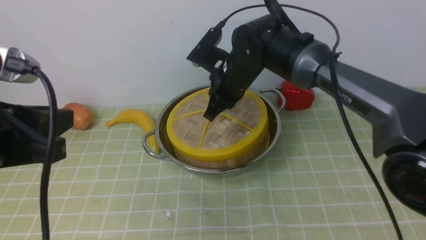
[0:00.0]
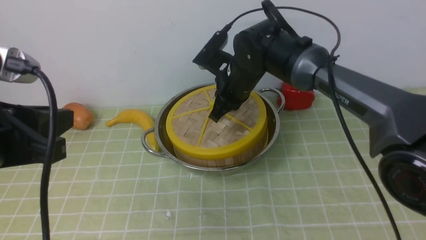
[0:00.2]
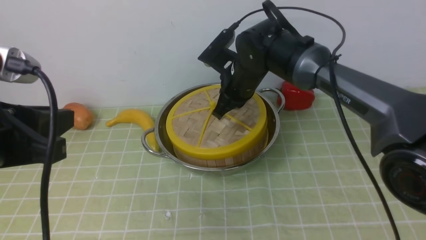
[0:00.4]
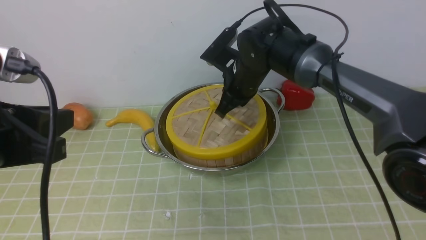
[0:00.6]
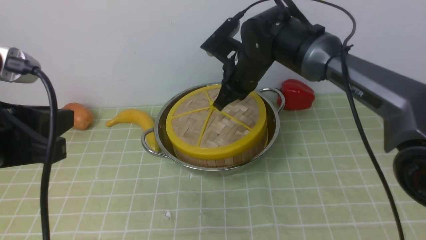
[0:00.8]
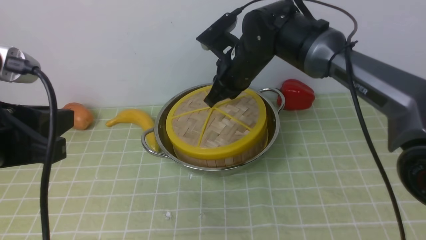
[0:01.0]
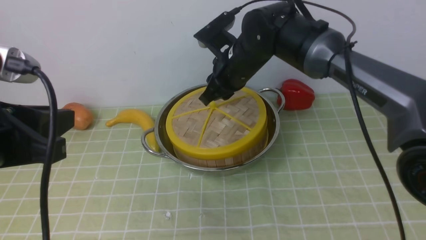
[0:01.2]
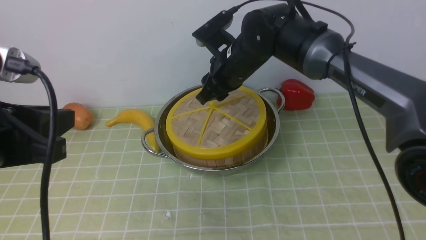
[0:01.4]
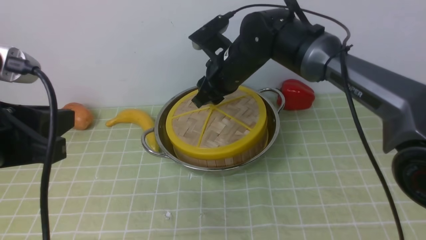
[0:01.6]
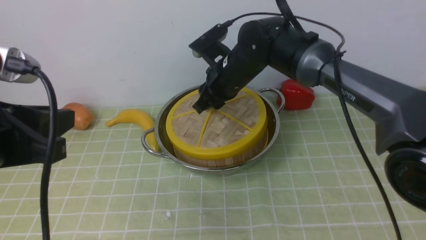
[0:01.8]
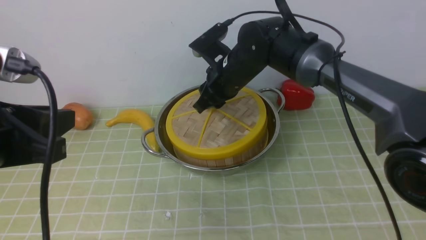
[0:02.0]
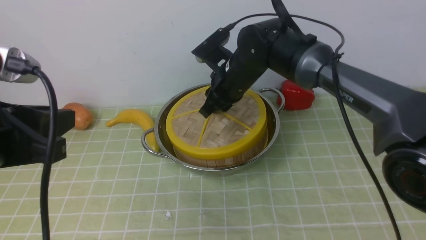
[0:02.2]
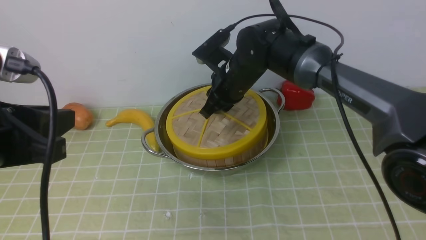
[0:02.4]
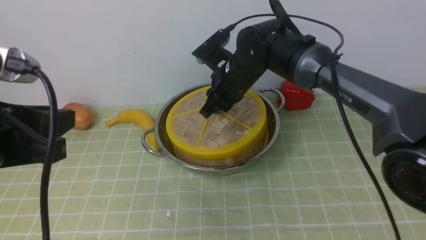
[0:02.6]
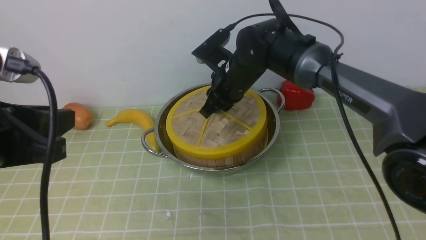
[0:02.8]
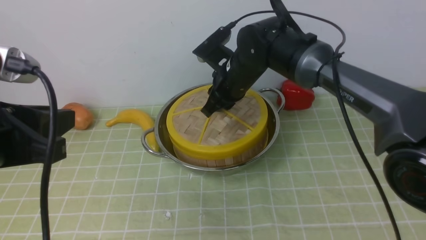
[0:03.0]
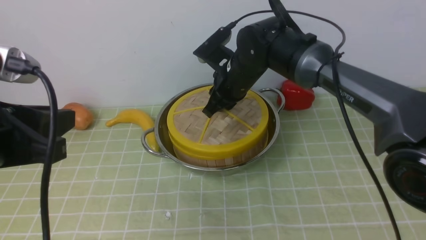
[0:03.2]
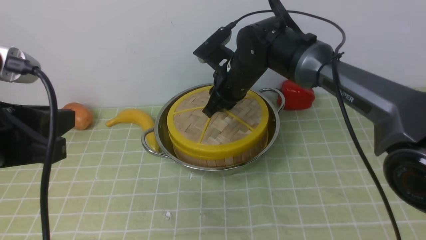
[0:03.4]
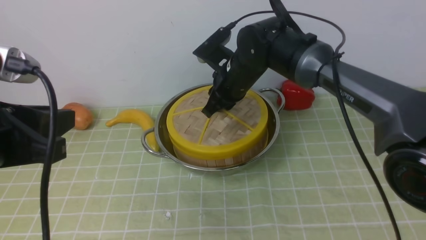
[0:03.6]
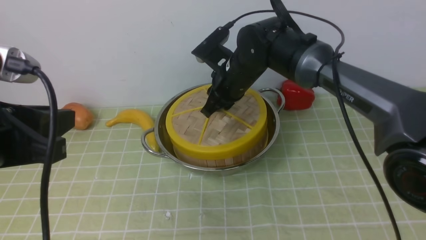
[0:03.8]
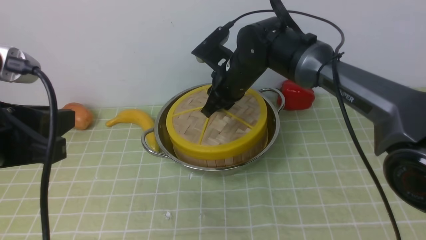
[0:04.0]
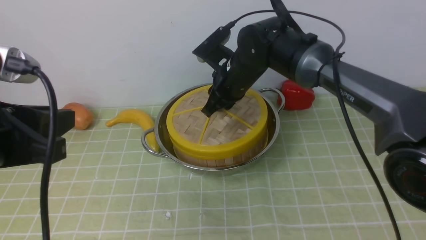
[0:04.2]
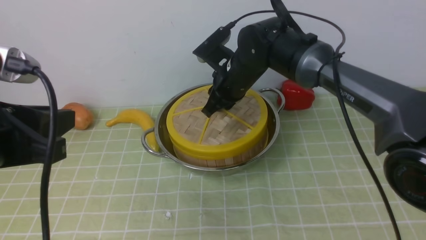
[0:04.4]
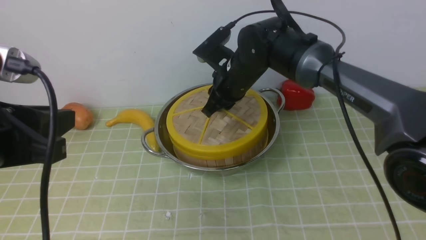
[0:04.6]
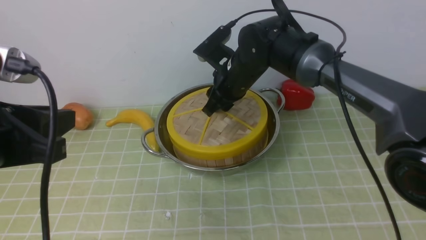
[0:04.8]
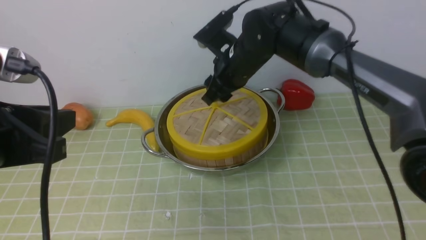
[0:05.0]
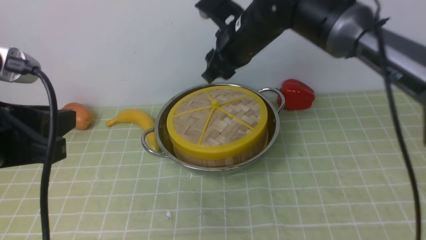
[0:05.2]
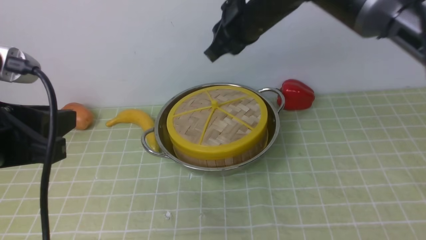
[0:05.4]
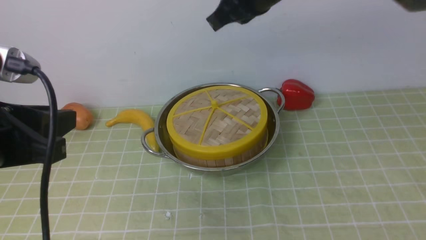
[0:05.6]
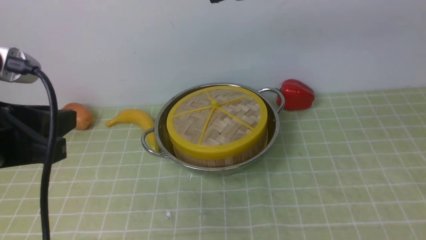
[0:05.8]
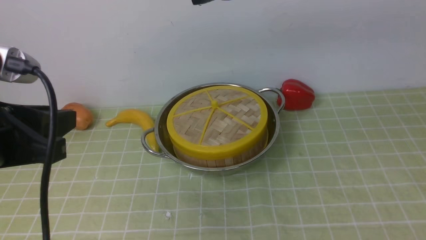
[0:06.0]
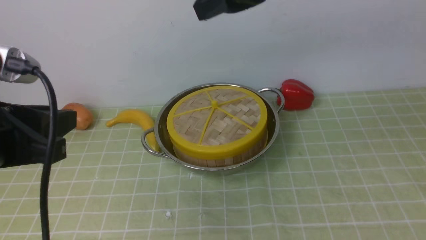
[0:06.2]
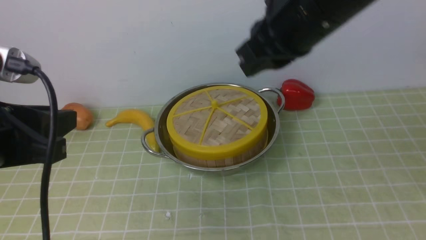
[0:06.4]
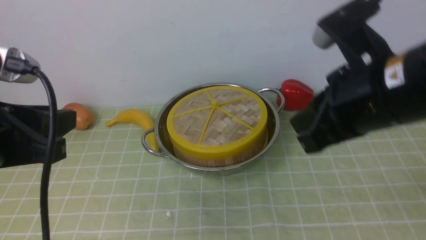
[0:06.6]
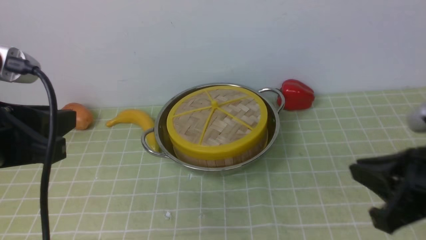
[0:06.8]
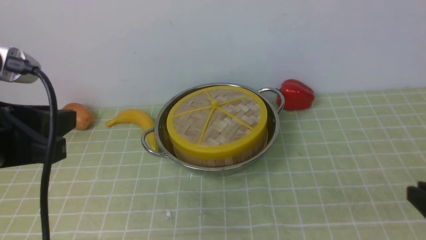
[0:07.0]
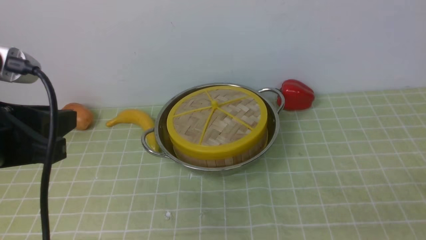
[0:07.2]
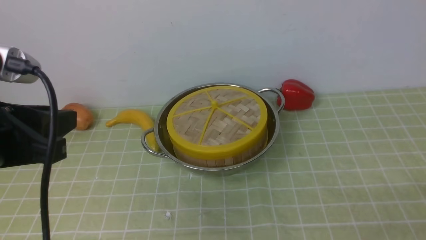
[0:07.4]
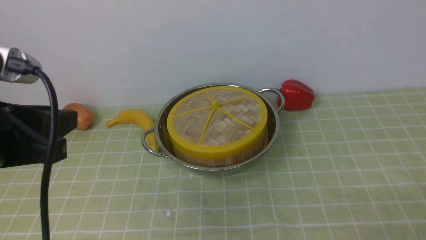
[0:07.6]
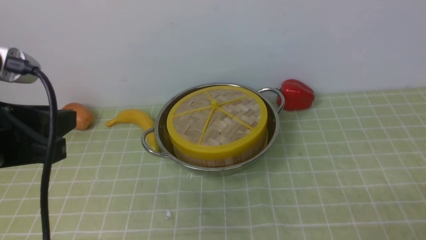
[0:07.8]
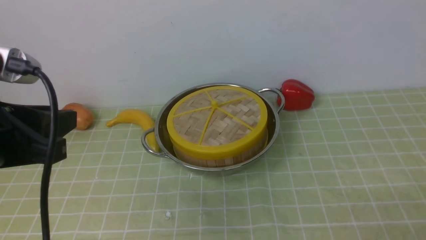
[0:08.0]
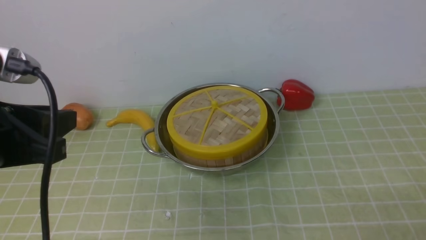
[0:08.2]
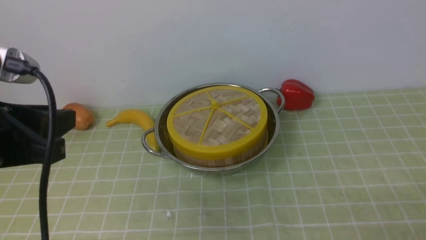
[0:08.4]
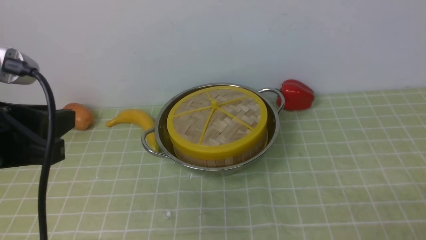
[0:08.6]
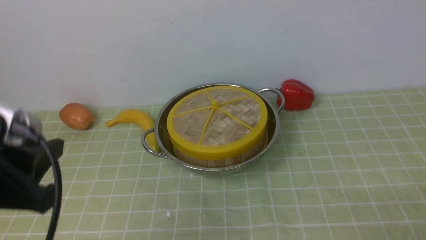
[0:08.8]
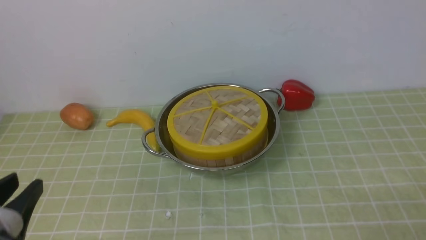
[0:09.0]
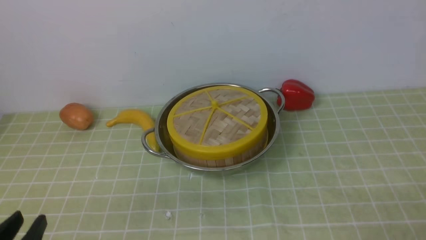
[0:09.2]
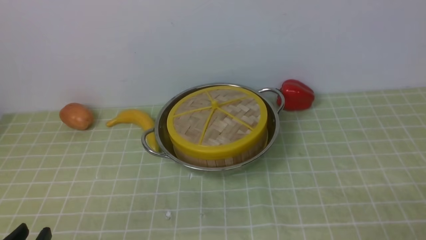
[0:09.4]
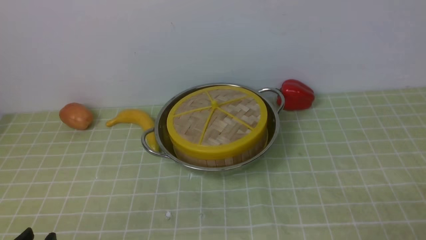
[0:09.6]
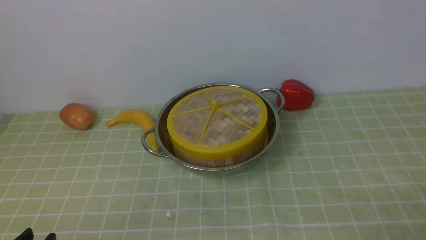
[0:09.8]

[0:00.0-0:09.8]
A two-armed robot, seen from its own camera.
Task of the whole recording: place the steamer in the pot on the green tablecloth, and put the lid on the steamer.
Step, 0:00.0 to 0:05.6: use the right arm to place the steamer lid on the steamer.
0:00.0 to 0:01.4: The right gripper opens.
0:01.4 to 0:02.8: The right gripper closes its fingers.
0:02.8 to 0:04.2: The two grippers keep their place.
0:04.2 to 0:05.6: The right gripper travels upward by about 20 cm, and closes its fingers.
0:05.6 to 0:07.0: The right gripper shifts about 40 cm backward, to the right and downward.
0:08.4 to 0:09.8: The left gripper goes some 20 cm downward and backward.

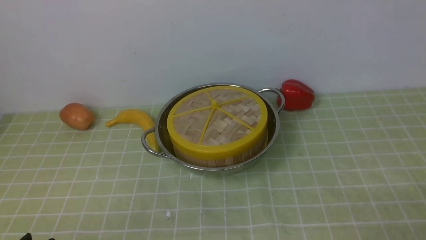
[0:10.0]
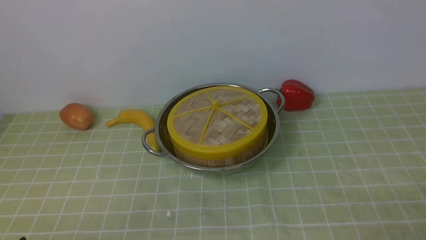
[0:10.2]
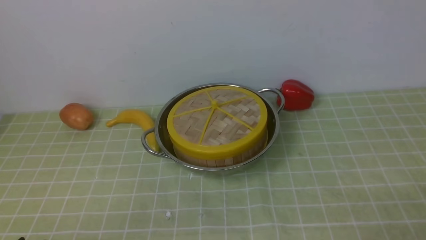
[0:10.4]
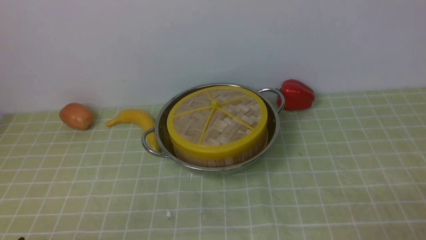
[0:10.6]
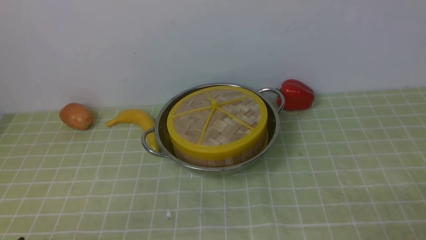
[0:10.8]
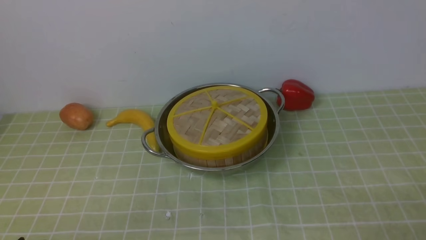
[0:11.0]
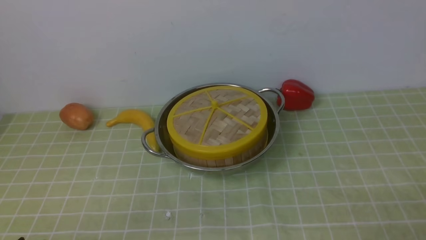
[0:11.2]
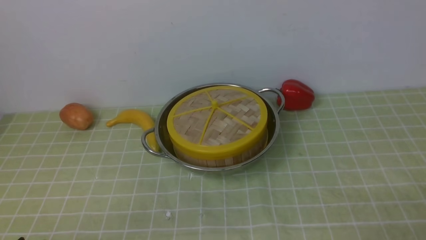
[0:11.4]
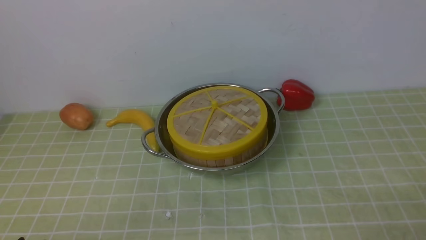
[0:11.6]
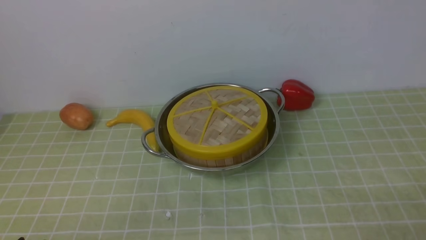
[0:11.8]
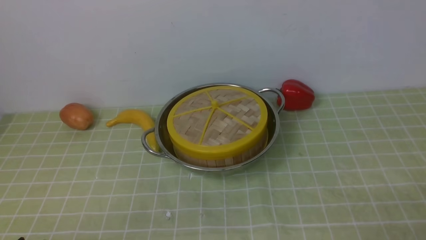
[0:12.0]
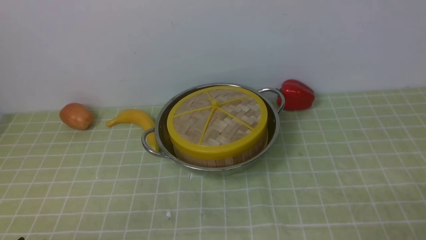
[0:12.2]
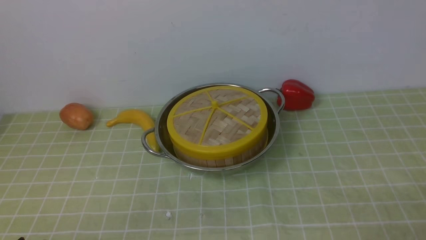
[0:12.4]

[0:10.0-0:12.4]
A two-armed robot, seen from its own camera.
Task of the whole recording: place the steamer in the pot on the green tablecloth, and put the lid on the steamer.
0:11.2 to 0:12.4: Both grippers stay about where they are.
